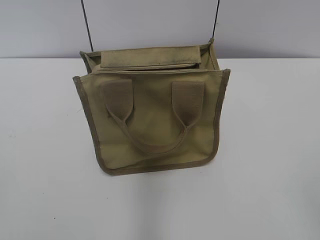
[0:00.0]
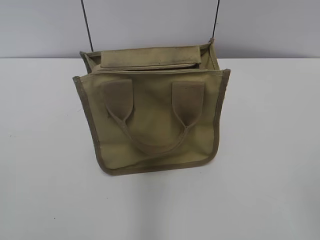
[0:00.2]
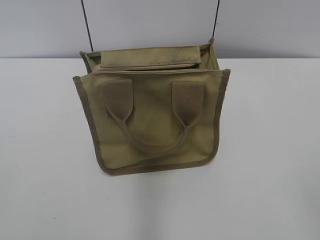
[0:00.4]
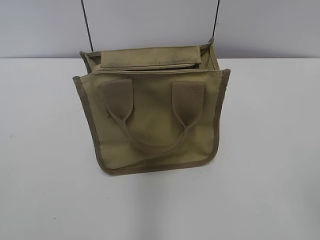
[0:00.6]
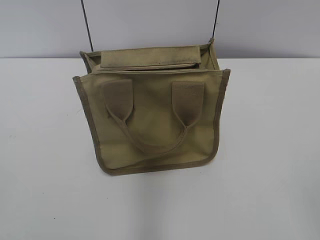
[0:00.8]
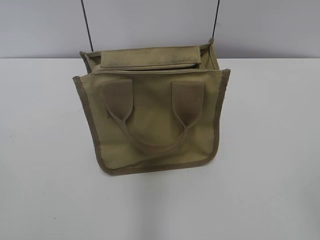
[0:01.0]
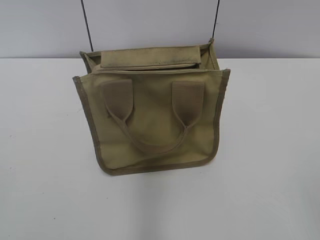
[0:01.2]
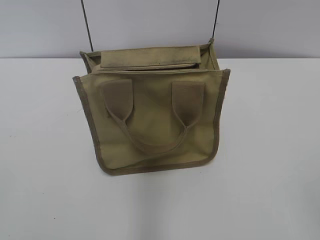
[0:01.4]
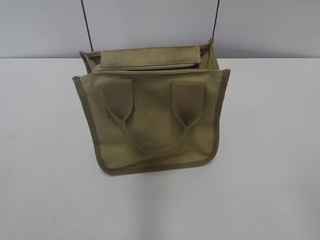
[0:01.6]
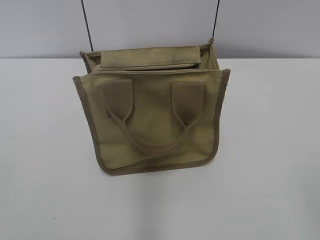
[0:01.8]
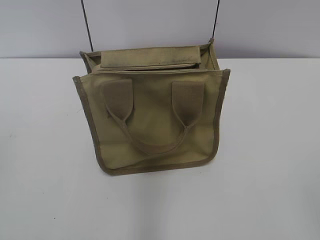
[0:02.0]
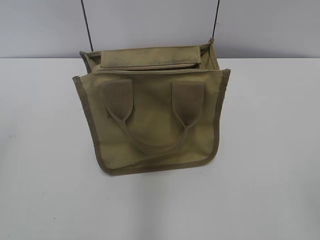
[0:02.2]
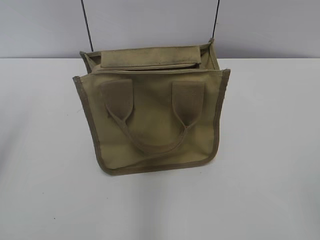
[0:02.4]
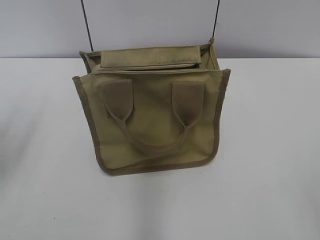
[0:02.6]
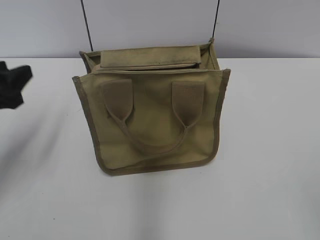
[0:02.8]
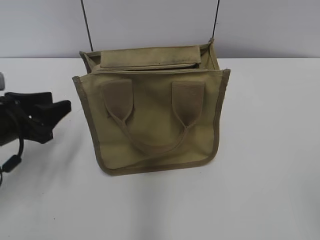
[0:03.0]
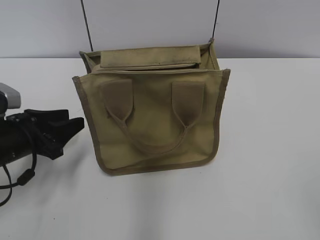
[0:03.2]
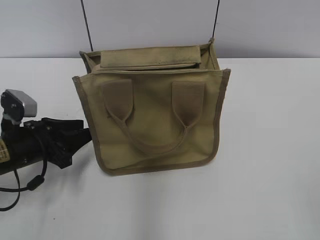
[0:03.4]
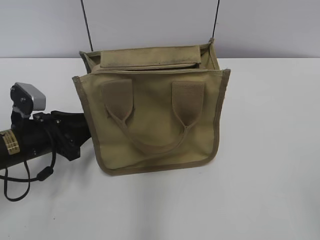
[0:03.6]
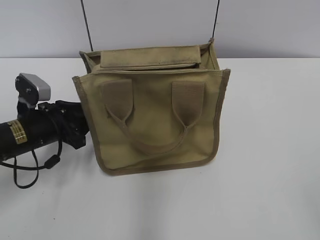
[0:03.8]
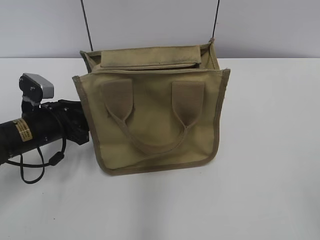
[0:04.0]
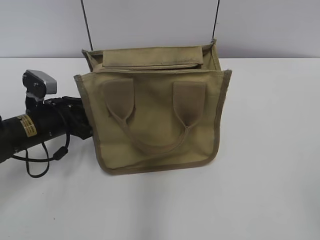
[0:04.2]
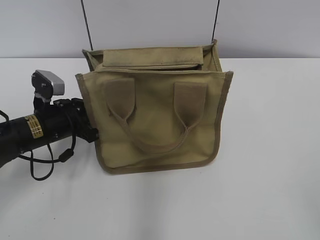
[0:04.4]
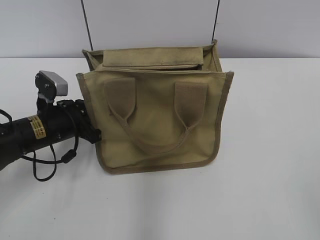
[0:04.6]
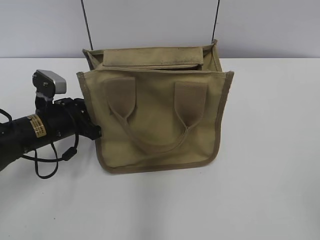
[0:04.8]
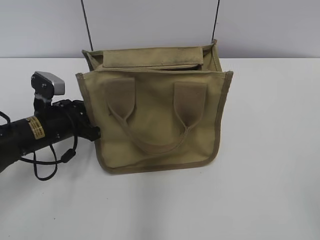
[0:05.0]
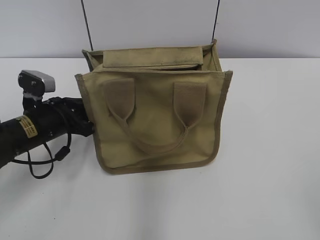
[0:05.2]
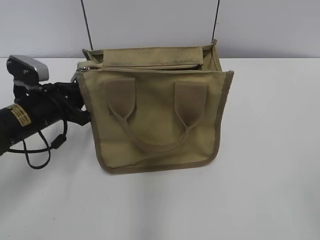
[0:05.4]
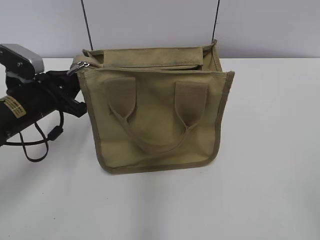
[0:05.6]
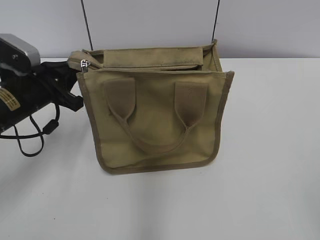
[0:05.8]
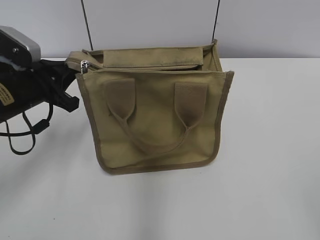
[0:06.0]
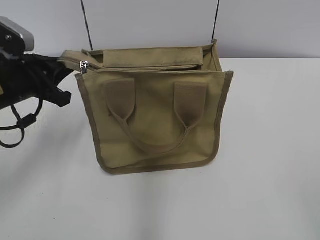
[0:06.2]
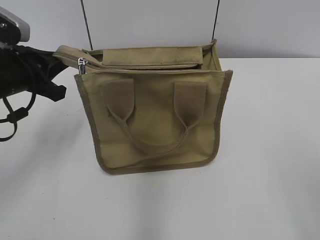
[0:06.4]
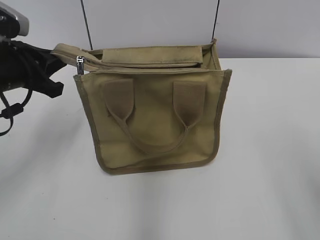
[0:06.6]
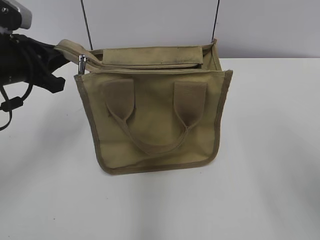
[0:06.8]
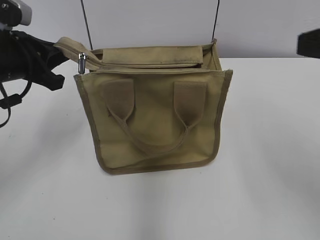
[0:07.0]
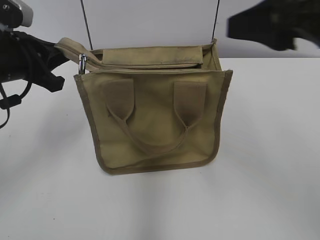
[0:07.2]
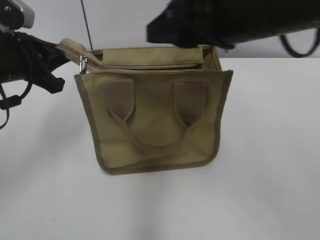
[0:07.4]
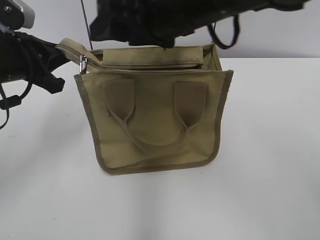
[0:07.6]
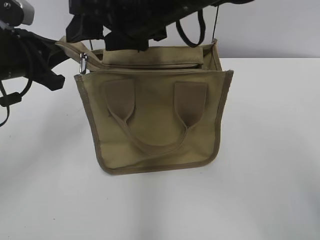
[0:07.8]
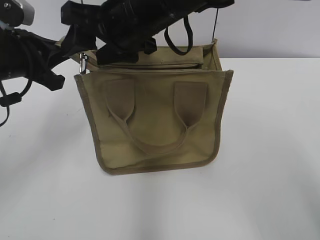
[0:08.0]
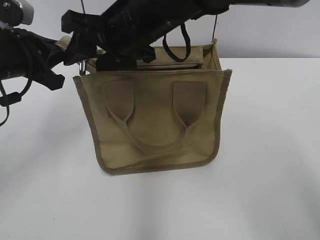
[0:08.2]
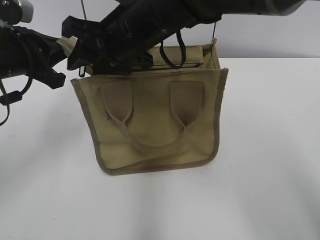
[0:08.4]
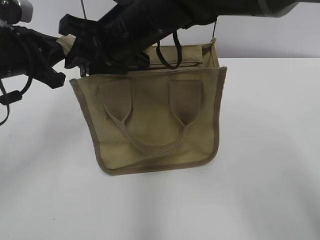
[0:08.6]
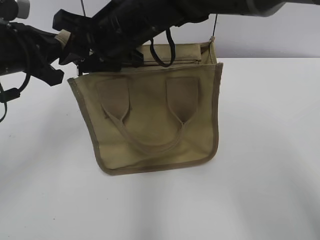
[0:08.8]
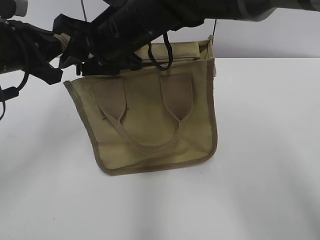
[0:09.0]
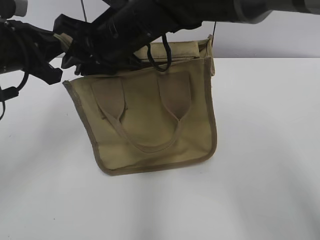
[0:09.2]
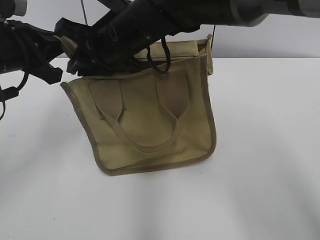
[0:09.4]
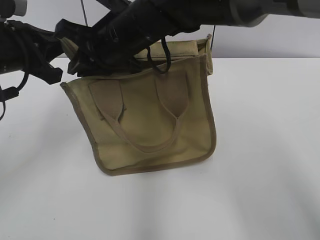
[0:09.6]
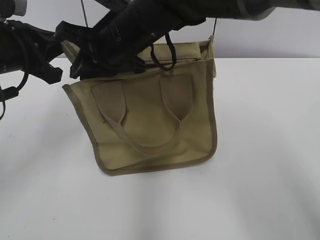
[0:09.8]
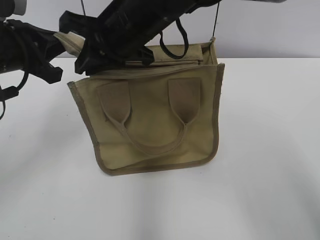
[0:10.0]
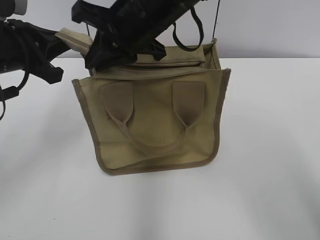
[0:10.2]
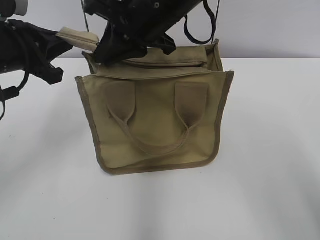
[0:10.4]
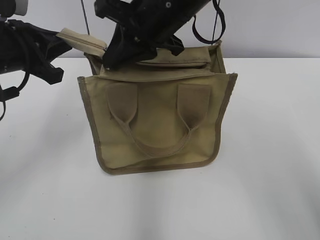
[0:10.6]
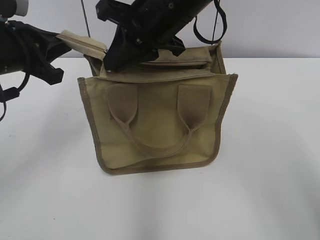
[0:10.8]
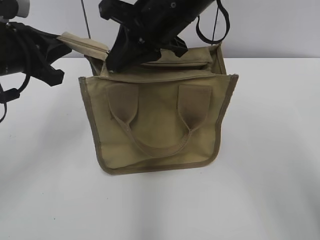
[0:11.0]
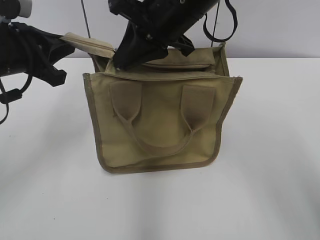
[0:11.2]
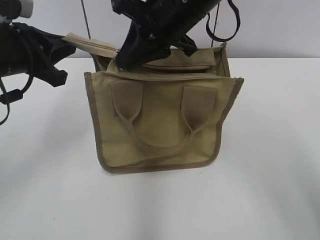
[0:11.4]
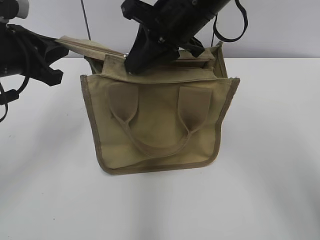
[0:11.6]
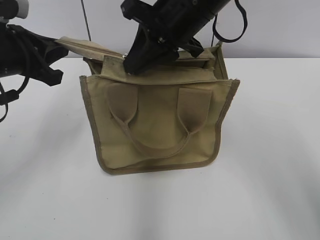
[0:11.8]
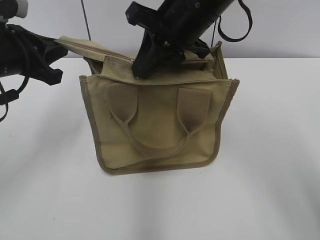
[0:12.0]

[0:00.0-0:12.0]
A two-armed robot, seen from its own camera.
0:01.6 to 0:03.0: The left gripper shifts about 30 cm forward and downward.
0:03.0 to 0:04.4: The left gripper travels forward, downward and to the right by approximately 10 cm, and closes its fingers.
0:04.4 to 0:06.0: The left gripper moves upward, roughly 10 cm.
0:06.0 to 0:07.6: The left gripper heads upward, covering about 5 cm. Meanwhile the right gripper heads forward and to the left, covering roughly 40 cm.
0:07.6 to 0:09.0: The right gripper moves to the left, downward and forward, some 10 cm, and closes its fingers.
0:09.0 to 0:10.4: The right gripper changes place by some 5 cm, and closes.
0:10.4 to 0:12.0: The grippers stay close to where they were, moving slightly.

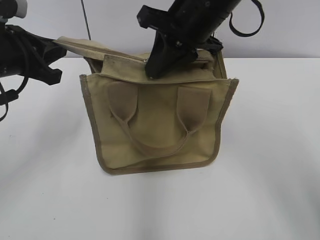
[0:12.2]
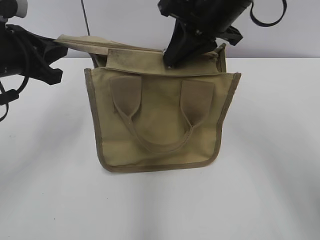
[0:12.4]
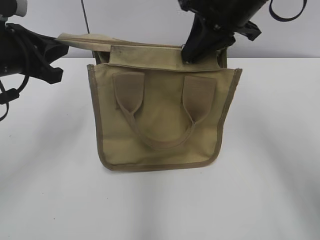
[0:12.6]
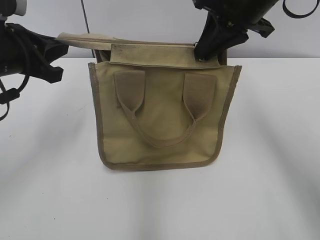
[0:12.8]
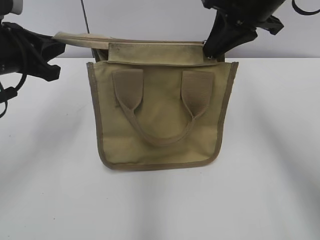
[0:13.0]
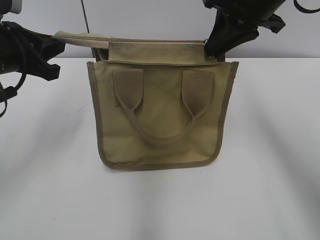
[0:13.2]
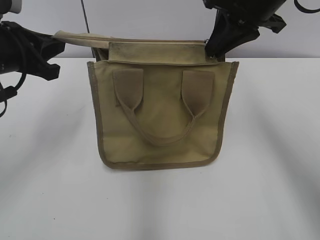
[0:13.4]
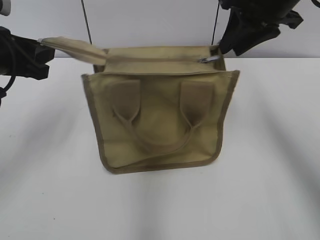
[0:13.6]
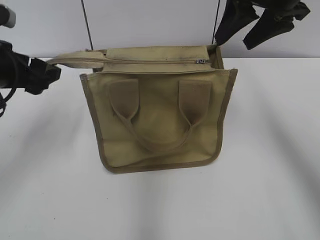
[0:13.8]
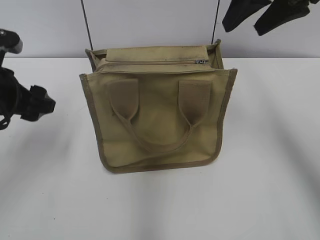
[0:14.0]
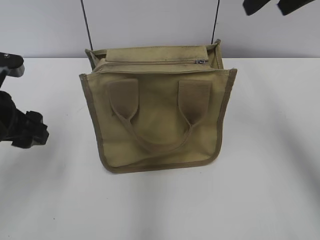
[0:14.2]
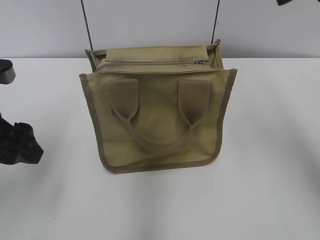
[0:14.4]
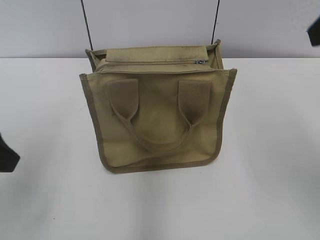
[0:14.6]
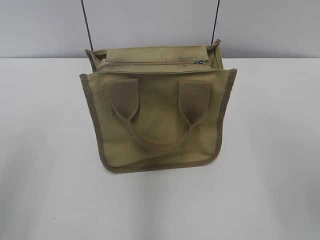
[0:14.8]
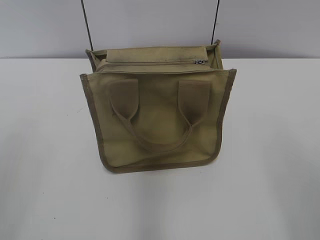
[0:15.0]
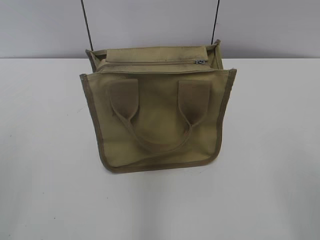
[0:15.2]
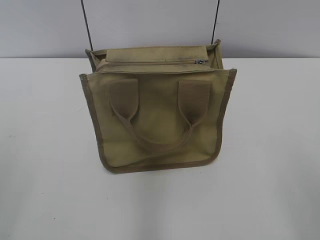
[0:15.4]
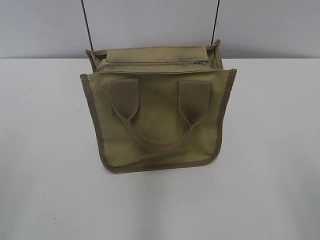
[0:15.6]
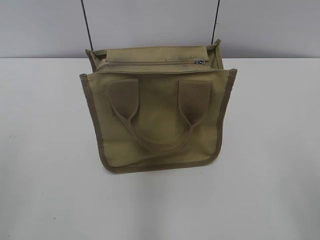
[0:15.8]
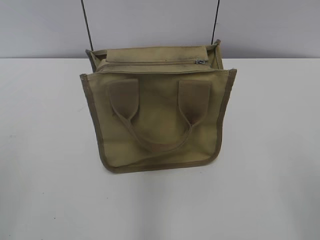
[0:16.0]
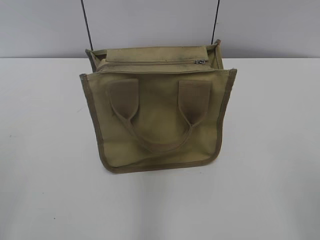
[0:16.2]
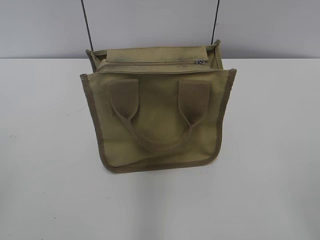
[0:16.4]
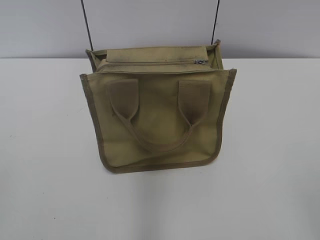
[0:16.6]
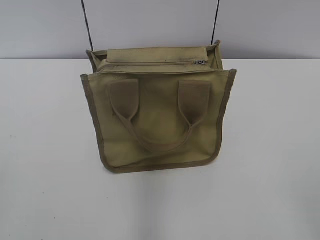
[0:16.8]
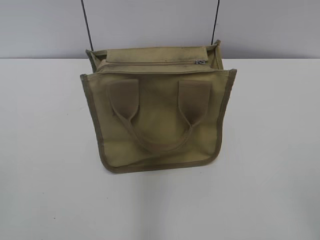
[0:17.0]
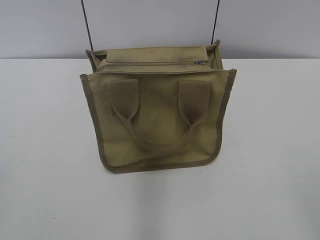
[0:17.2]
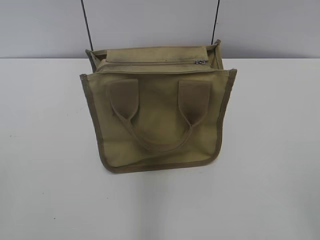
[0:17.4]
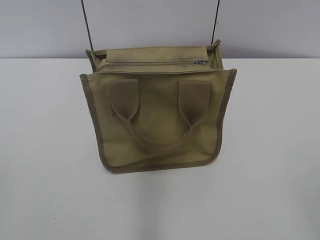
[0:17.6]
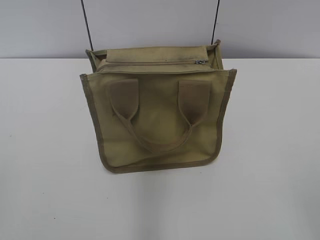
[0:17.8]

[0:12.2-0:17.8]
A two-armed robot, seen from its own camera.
0:12.2 to 0:13.6: The left gripper opens. The right gripper moves to the right, approximately 10 cm.
0:13.6 to 0:15.0: The two grippers go some 25 cm backward. The right gripper opens; the left gripper opens up.

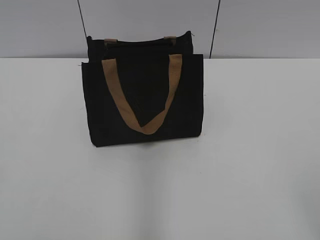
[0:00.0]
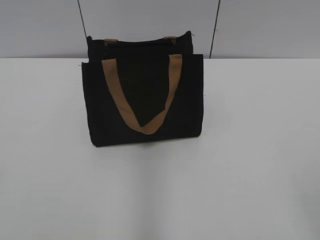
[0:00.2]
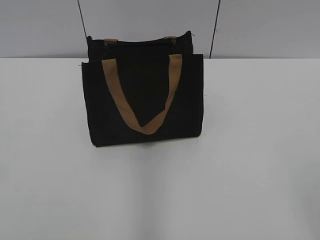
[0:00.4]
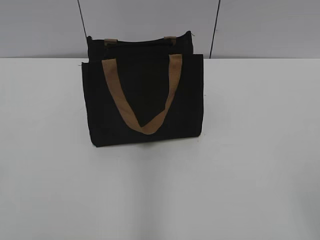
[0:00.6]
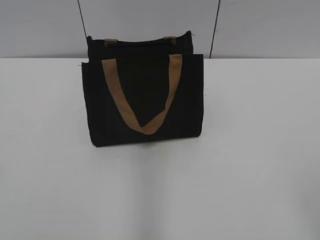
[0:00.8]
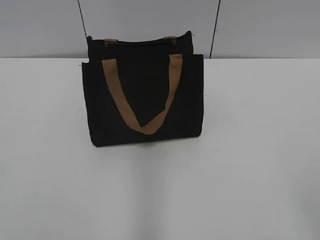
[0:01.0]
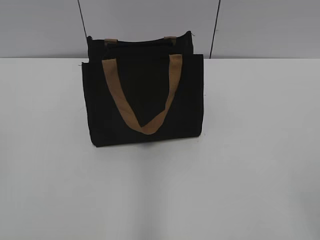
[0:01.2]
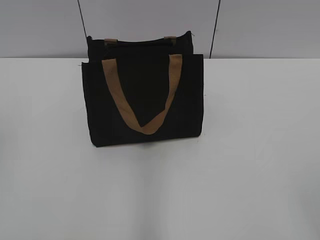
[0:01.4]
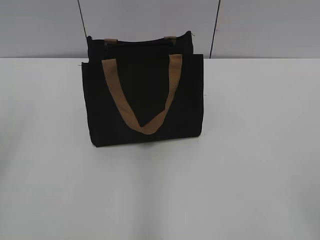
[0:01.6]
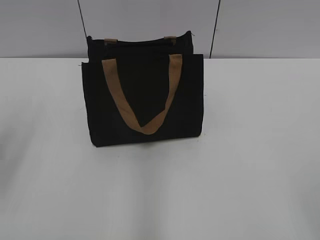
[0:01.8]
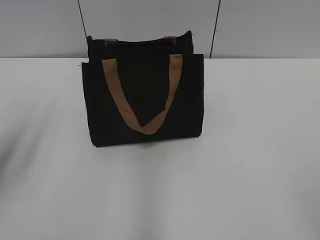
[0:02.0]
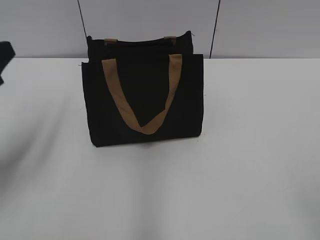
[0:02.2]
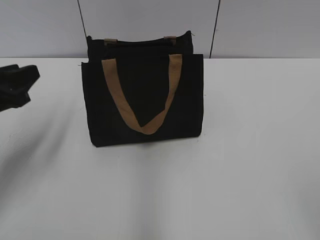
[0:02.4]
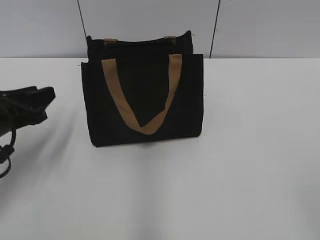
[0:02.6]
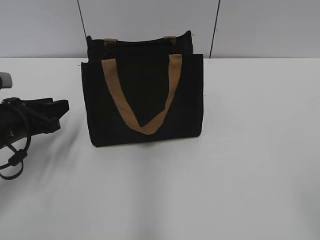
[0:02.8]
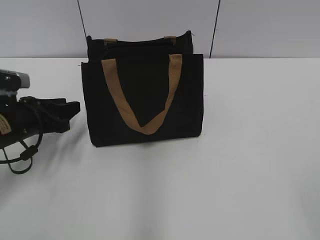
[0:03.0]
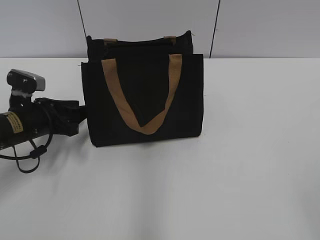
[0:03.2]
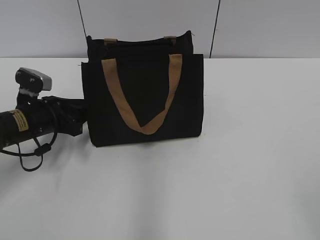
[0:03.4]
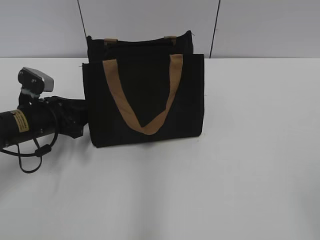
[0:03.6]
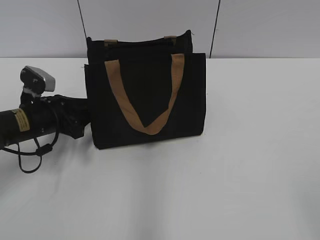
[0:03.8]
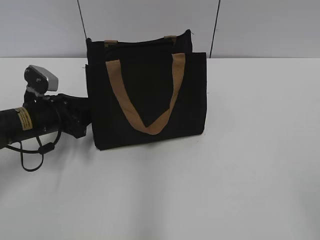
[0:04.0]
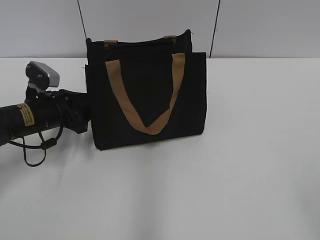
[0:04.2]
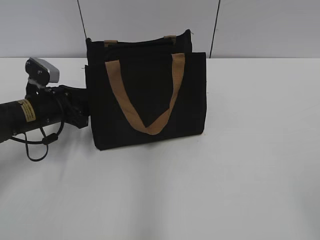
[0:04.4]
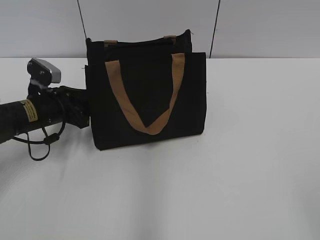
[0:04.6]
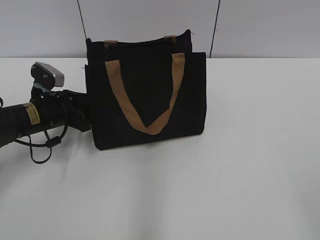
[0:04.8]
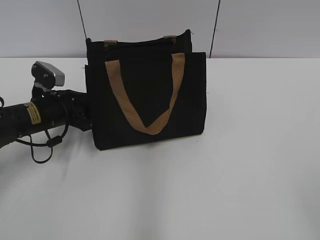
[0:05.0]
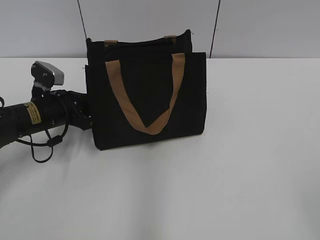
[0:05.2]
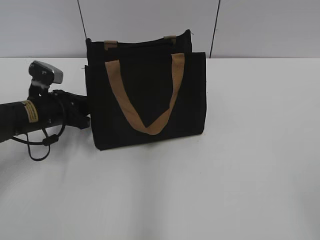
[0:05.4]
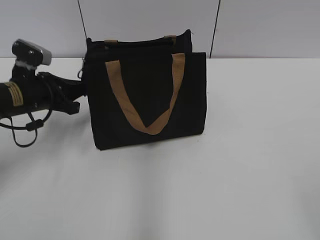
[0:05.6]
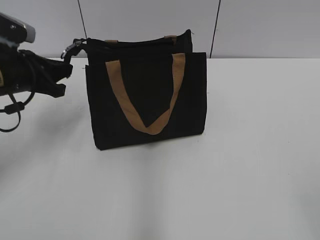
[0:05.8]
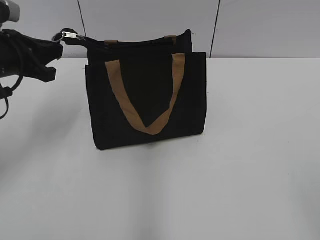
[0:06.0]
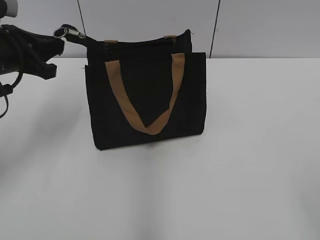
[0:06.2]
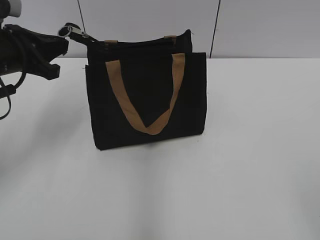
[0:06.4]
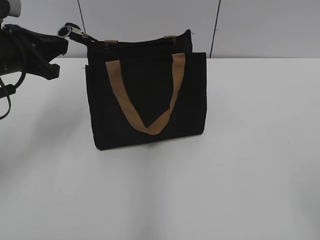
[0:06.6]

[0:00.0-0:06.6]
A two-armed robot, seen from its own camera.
0:01.6 to 0:03.2: The left gripper goes some 30 cm downward and forward.
0:03.2 to 0:05.0: There are only small adjustments of the grippers.
0:05.0 to 0:06.6: The left gripper heads upward, covering approximately 15 cm, and closes its fingers.
